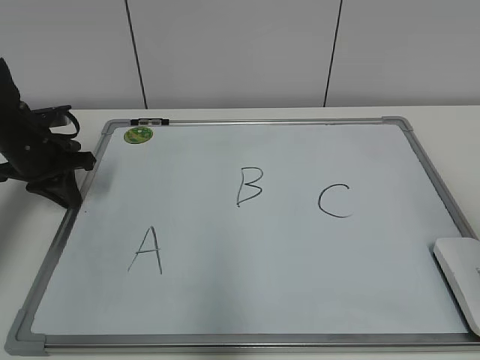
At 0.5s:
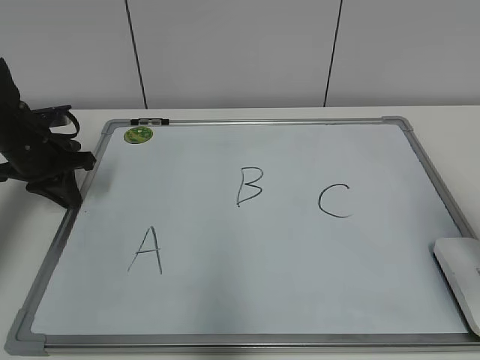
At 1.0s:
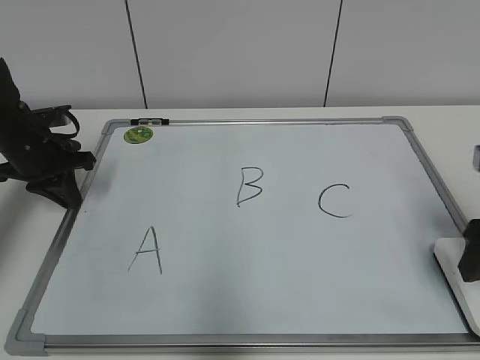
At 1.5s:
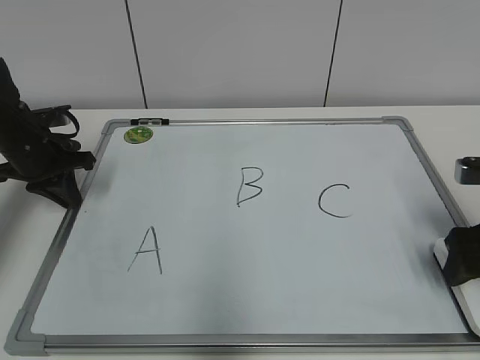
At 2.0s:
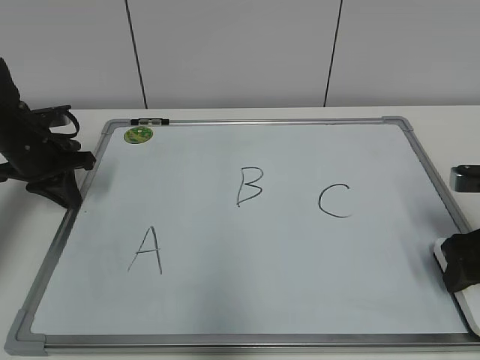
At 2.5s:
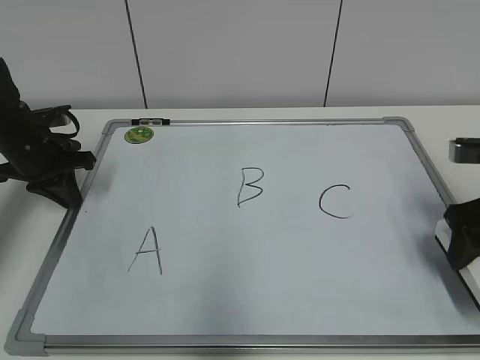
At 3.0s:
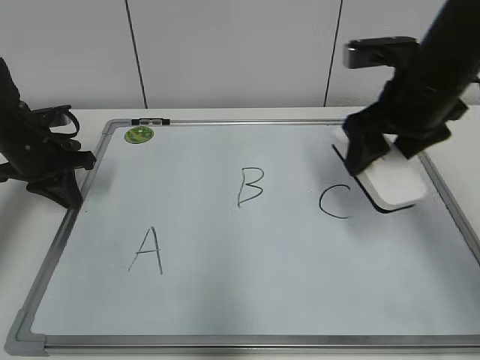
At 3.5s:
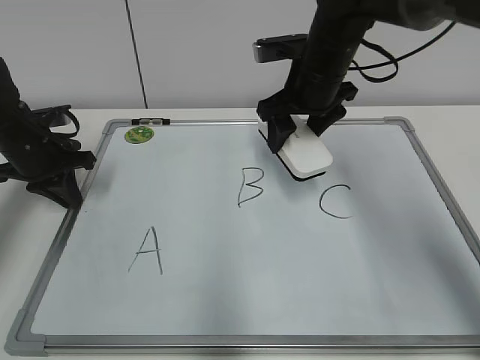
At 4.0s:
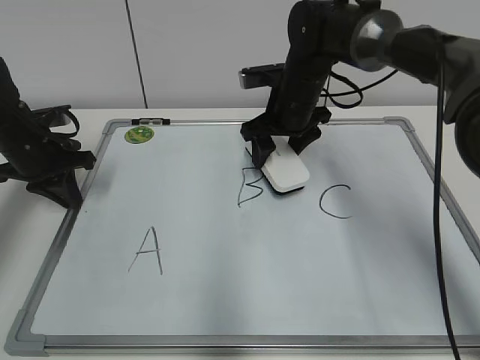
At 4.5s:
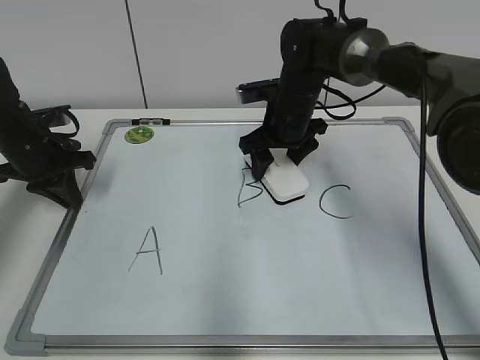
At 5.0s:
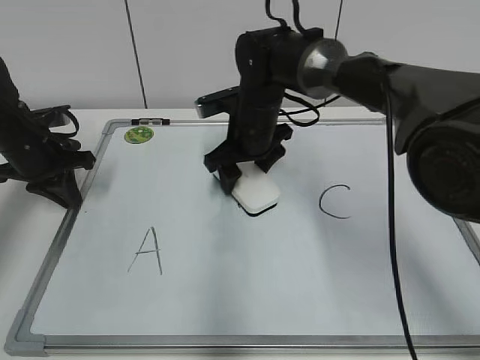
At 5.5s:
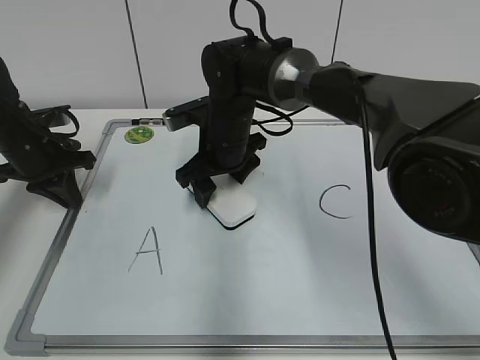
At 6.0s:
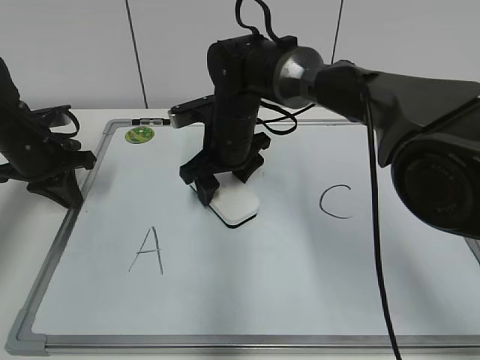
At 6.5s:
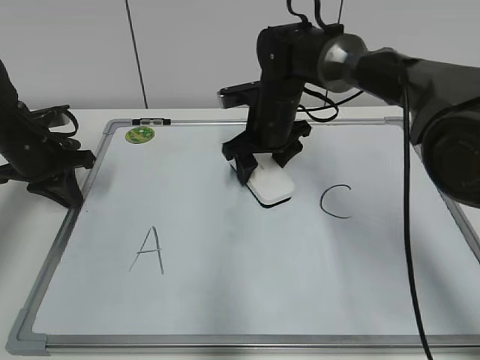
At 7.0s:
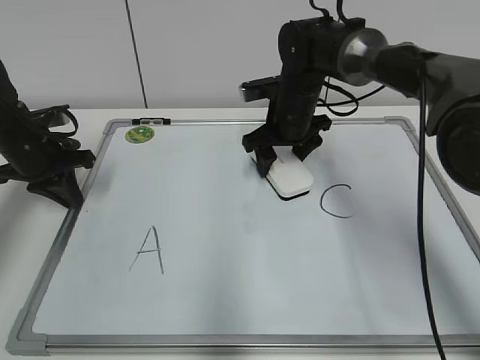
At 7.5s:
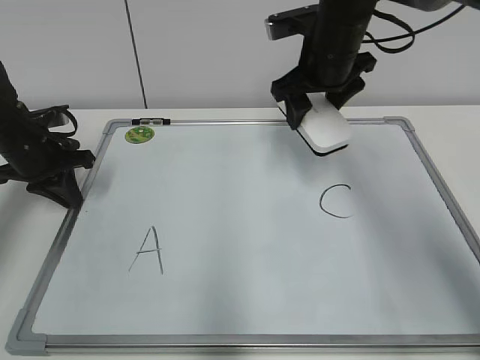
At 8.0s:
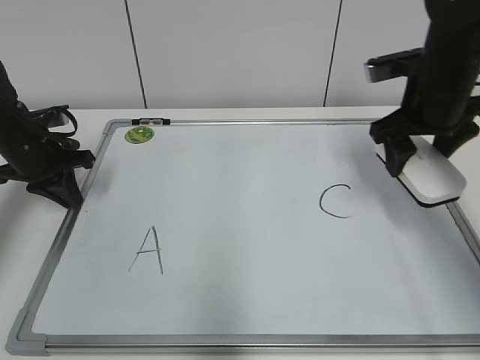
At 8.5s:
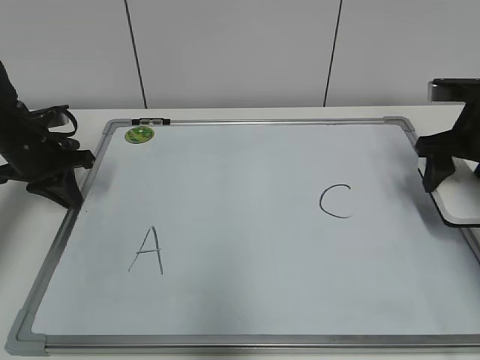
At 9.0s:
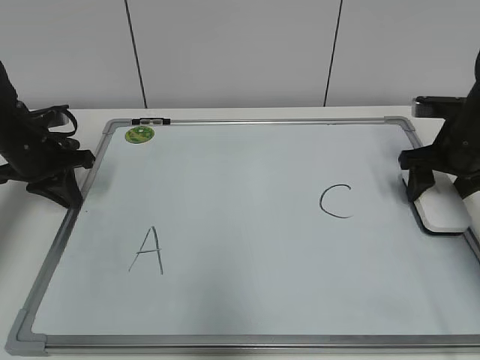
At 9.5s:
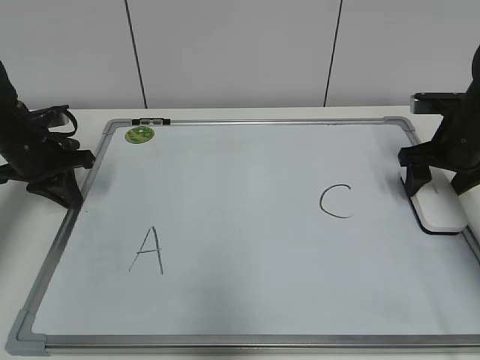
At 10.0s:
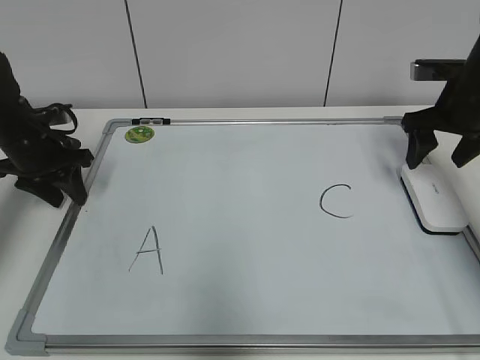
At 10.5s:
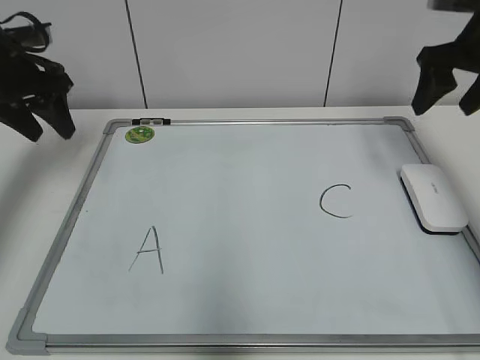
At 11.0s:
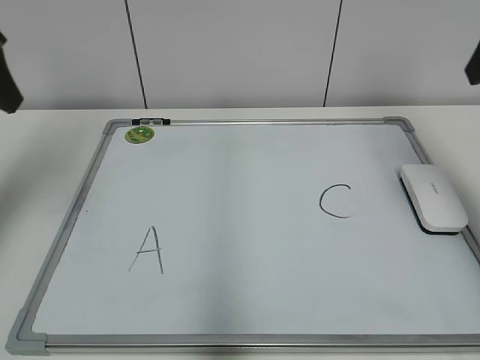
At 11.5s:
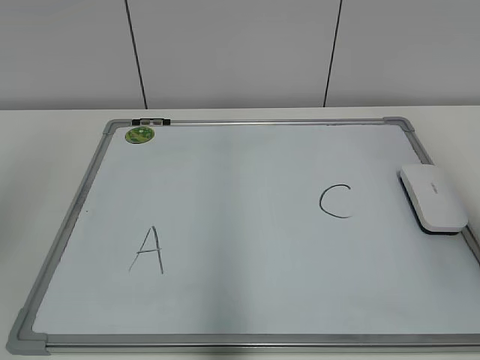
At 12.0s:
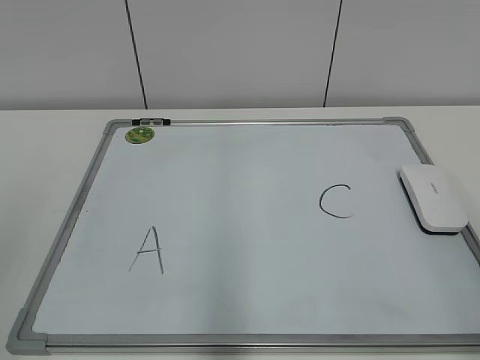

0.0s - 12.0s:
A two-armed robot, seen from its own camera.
Task of the whole recording: pick up the eraser on the blackboard and erase the letter "B".
Step, 0.0s - 2.0s: Grab the eraser with your right hand.
Step, 2.5s - 6.5s: Erase the letter B with your right hand.
0.0s - 2.0s: The right gripper is displaced forward and downward by some 25 cm, and closes.
2.0s - 4.0s: The right gripper goes about 30 cm forward and to the left.
4.0s - 6.0s: The right gripper shifts about 10 cm to the left.
6.0s - 8.0s: The right gripper goes about 25 cm to the right and upward.
8.0s - 10.0s: The right gripper is displaced to the right by approximately 10 cm, and opens its fingers; the left gripper opens.
10.0s - 12.0s: The right gripper moves backward, roughly 35 cm. The left gripper heads backward and upward, covering about 40 cm.
